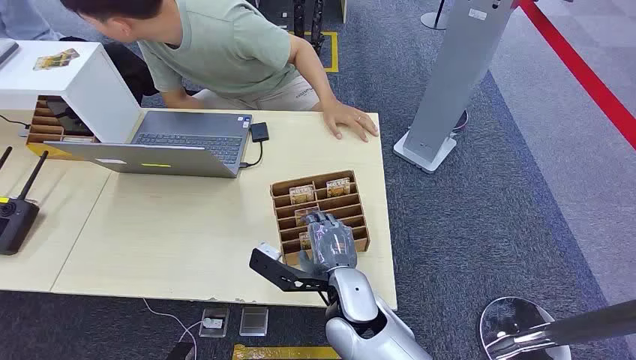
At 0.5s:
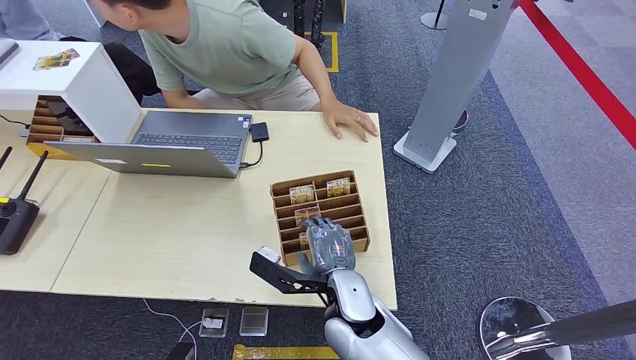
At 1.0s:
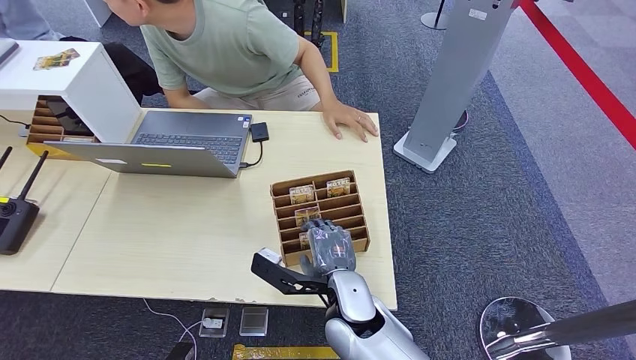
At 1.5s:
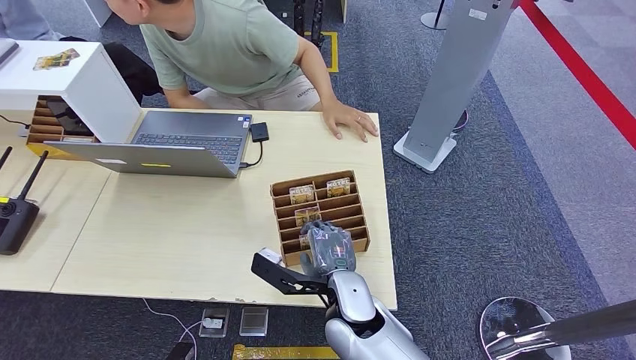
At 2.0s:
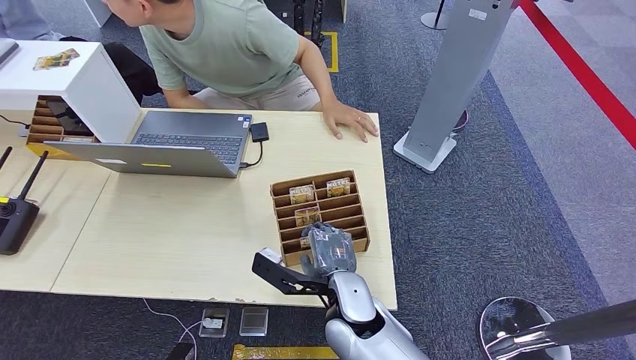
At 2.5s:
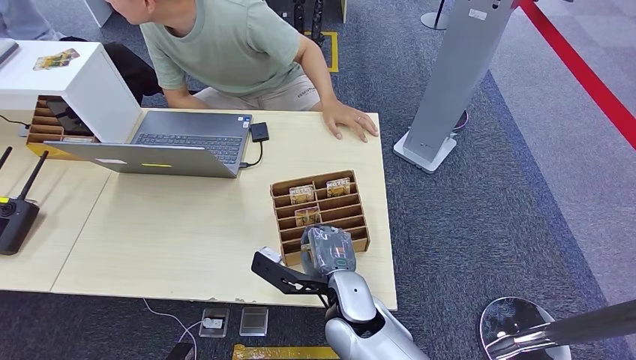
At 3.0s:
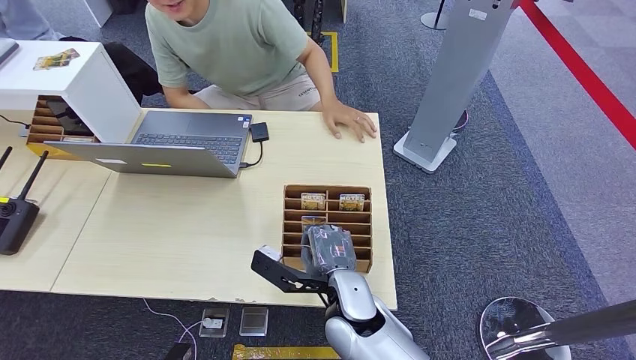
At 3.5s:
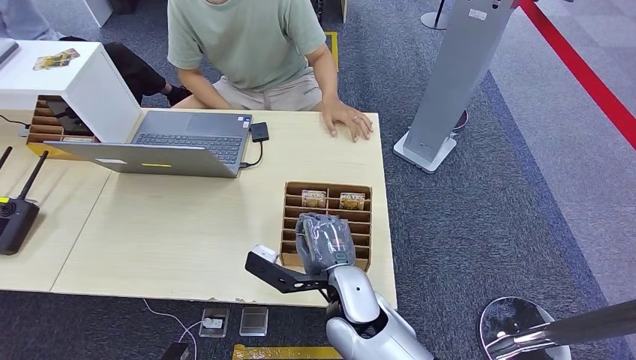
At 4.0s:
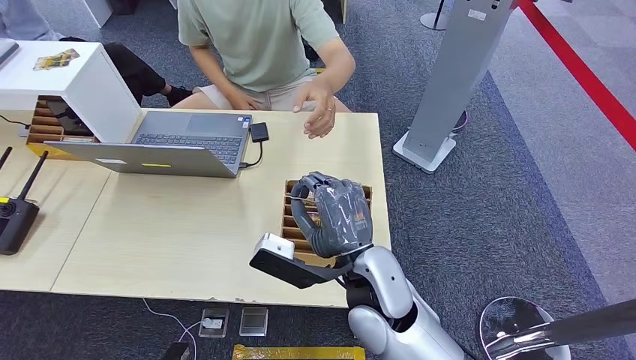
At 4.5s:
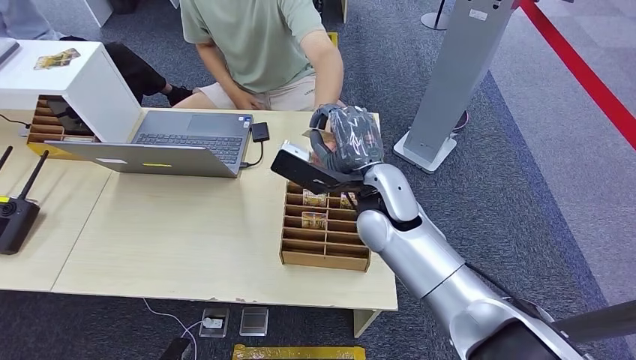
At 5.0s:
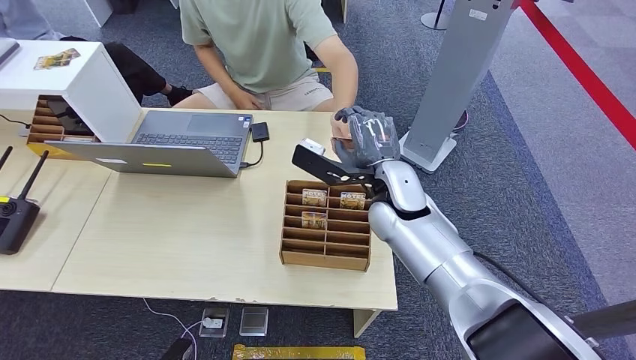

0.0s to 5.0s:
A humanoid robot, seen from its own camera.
Step, 0.0s to 3.5s: Pick up the key card from the card box.
Step, 4.5s to 5.0s: Hand the key card to the target.
